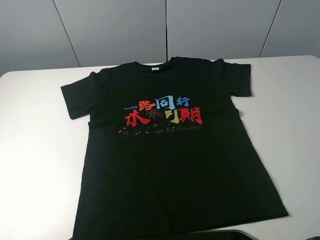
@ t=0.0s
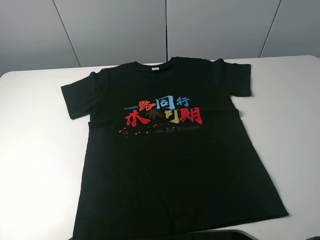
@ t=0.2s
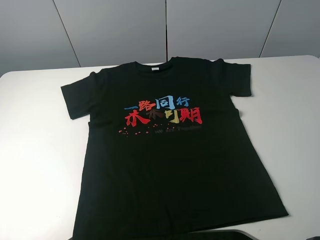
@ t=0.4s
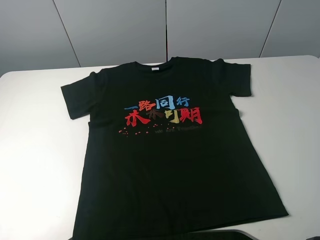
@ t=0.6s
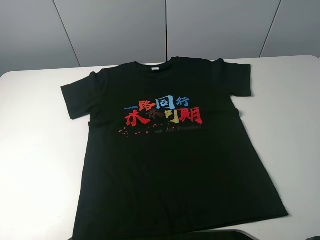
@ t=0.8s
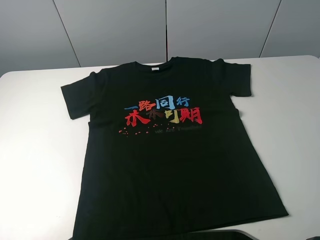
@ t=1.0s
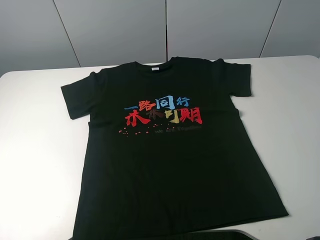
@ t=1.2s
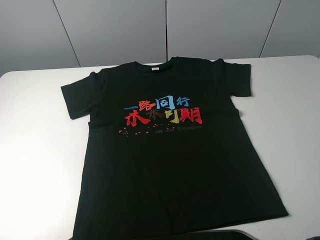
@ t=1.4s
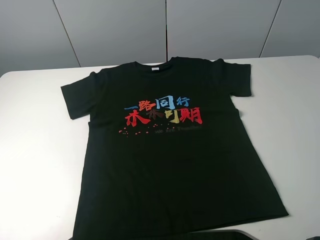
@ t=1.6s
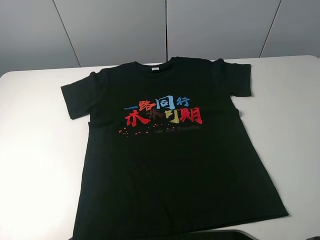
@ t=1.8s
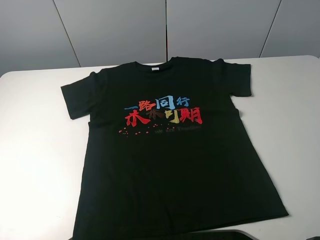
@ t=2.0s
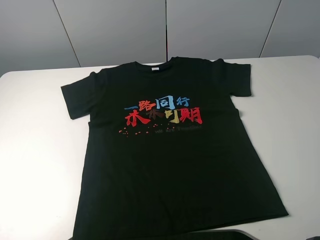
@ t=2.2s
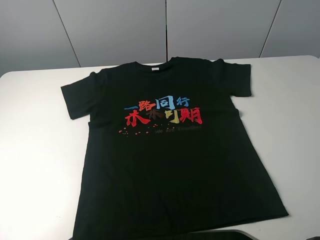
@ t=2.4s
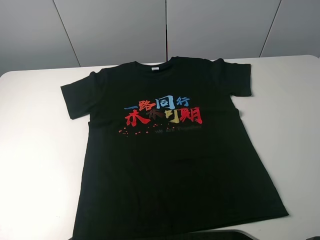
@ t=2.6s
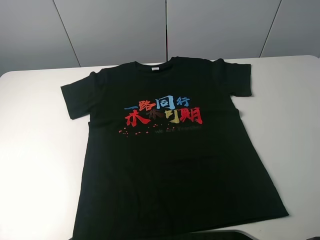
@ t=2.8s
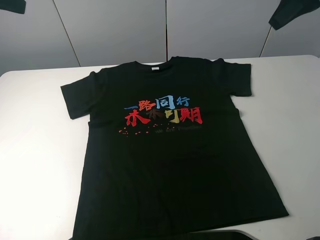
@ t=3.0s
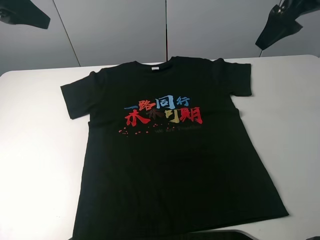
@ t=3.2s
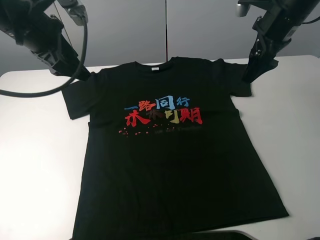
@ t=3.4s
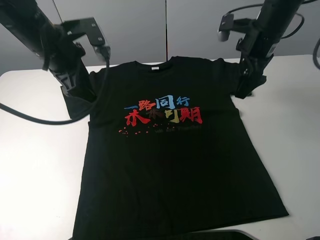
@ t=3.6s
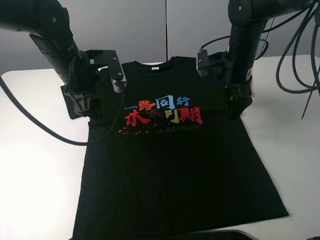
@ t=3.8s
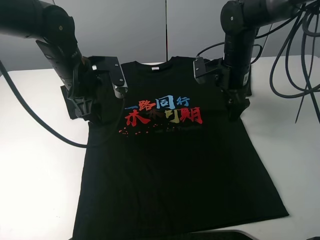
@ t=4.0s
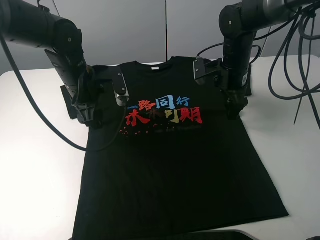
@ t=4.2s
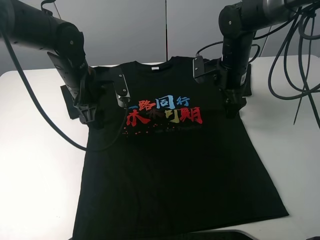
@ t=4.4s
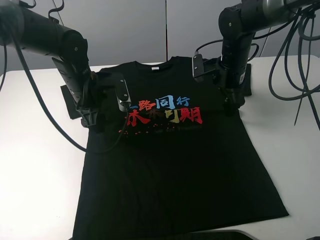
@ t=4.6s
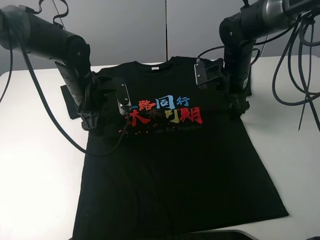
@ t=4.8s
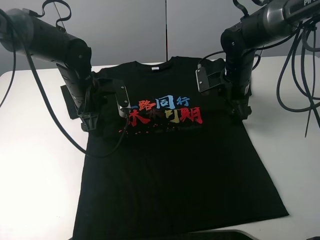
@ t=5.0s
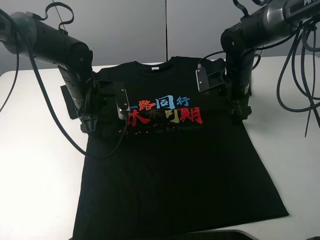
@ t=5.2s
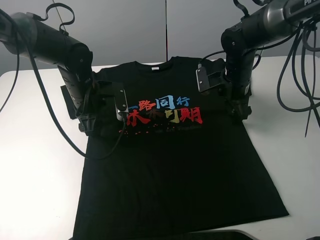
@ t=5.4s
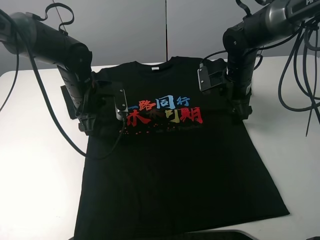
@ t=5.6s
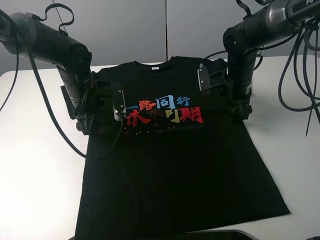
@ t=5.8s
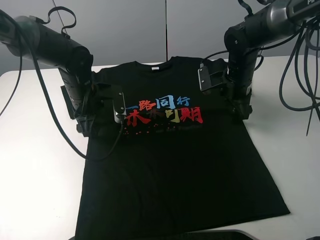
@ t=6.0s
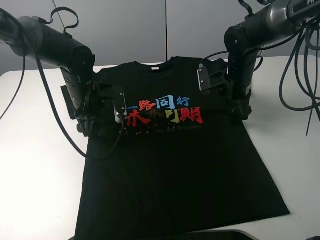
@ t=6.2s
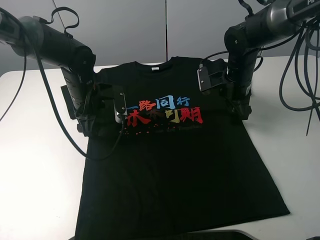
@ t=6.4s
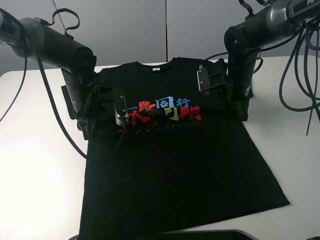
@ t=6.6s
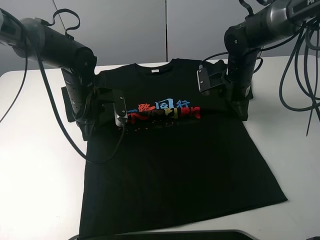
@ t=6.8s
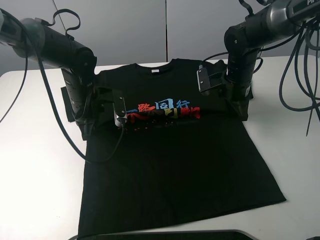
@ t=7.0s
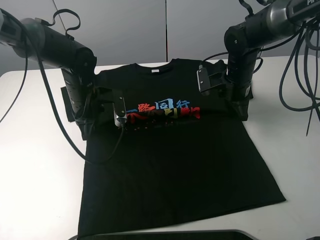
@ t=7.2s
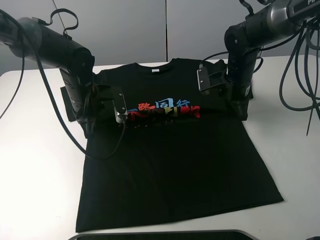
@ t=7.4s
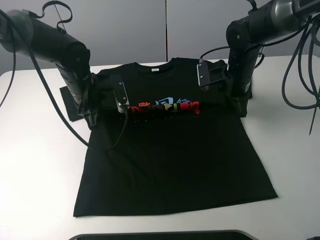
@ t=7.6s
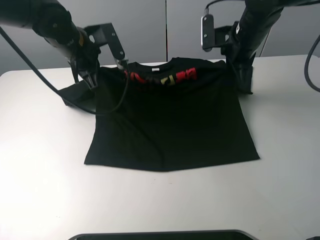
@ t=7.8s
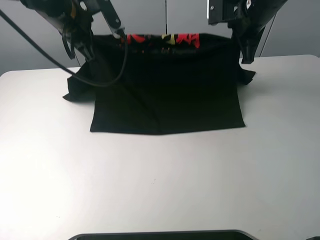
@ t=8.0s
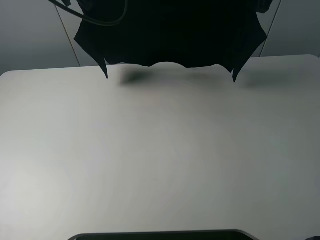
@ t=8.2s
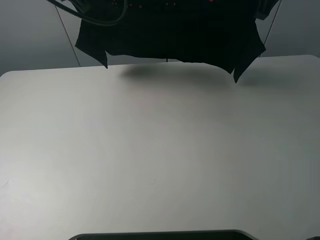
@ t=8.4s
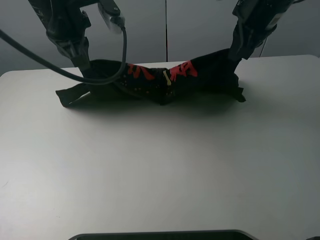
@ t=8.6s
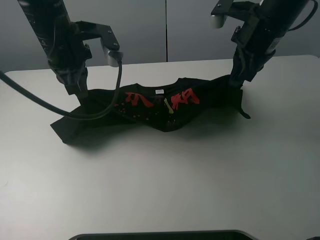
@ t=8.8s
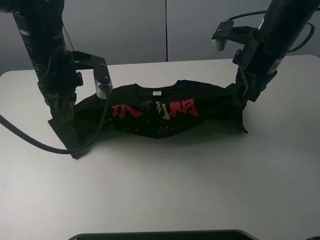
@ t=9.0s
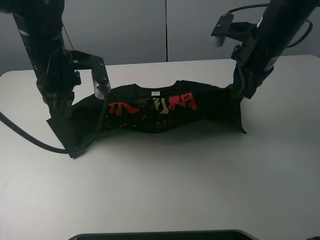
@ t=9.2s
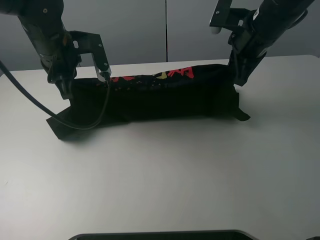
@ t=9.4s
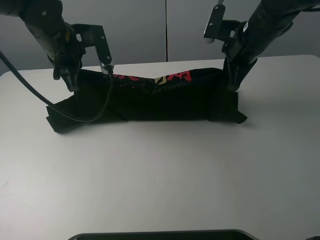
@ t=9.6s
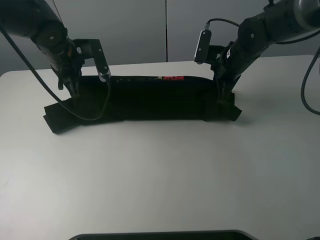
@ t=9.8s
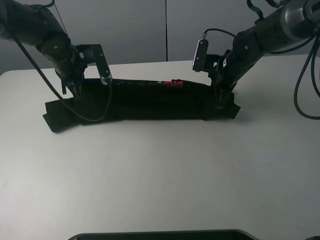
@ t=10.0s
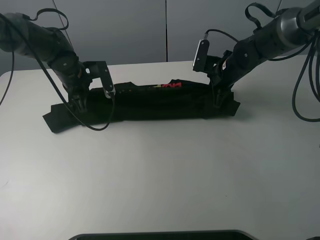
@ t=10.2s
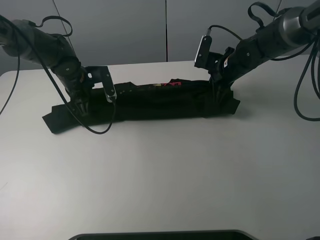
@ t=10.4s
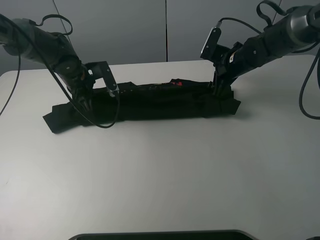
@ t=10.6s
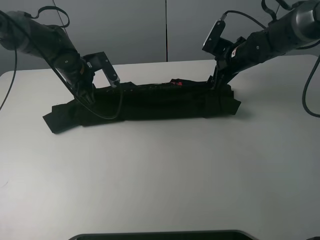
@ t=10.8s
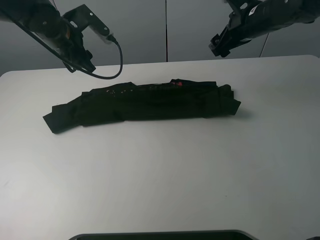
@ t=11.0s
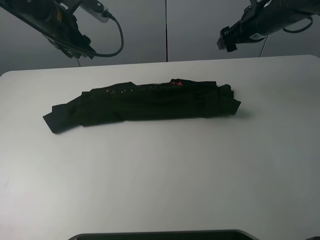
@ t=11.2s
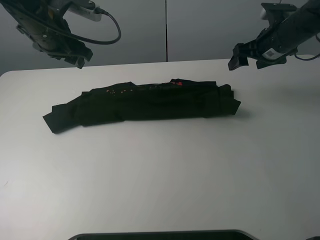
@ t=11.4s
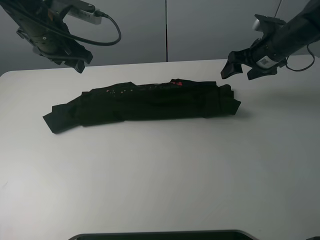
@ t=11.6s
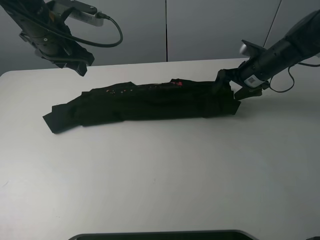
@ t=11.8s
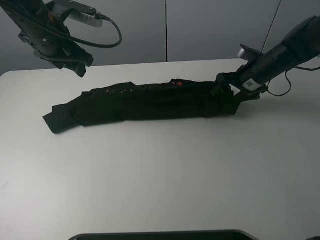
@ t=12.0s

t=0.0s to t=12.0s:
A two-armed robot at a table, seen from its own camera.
Task of the whole recording: fold the clothes on the table.
Step, t=0.0s to t=6.2s: Lift the black T-shirt with the left gripper.
Step, t=6.4s to t=10.8s: Fold the black T-shirt downward with the left gripper.
t=0.0s to t=1.6s: Neither gripper changes place.
t=1.6s to t=3.0s: The right gripper goes roughly 35 cm forward.
t=3.0s to t=4.4s: The right gripper heads downward and to the left, covering about 25 cm, while the left gripper travels downward and to the right by approximately 25 cm.
t=4.4s to t=6.0s: The grippers make only small movements.
t=6.0s to t=7.6s: The left gripper closes its fingers. The right gripper closes up.
t=7.6s to t=9.0s: Both grippers travel together upward and backward, approximately 10 cm.
t=9.0s to t=10.4s: The two grippers go approximately 15 cm downward and forward.
t=10.4s to t=12.0s: The right gripper shifts roughly 5 cm to the right, moves about 10 cm upward and comes back, and opens its fingers. The left gripper shifts approximately 15 cm upward, and opens its fingers.

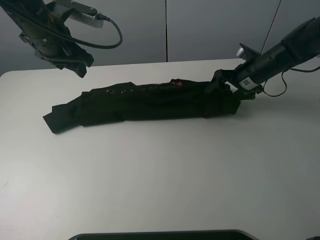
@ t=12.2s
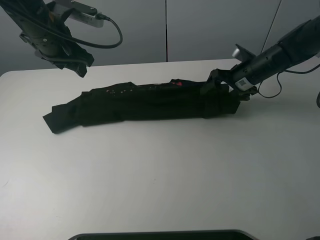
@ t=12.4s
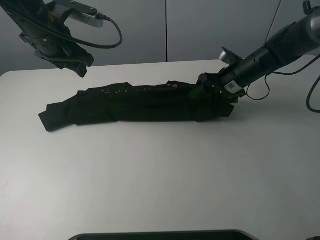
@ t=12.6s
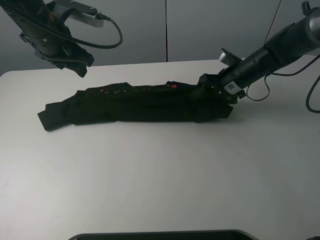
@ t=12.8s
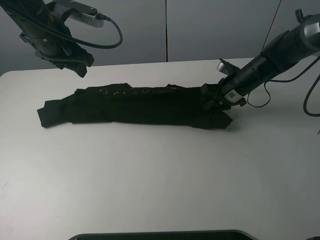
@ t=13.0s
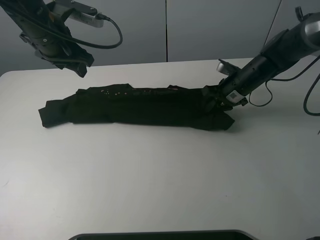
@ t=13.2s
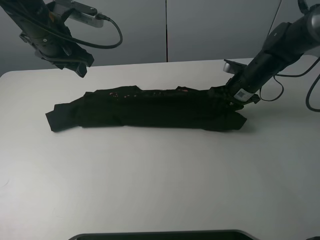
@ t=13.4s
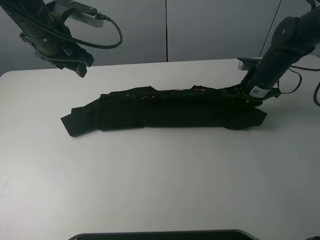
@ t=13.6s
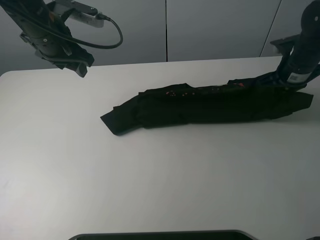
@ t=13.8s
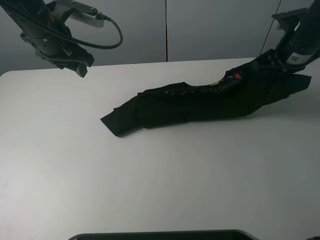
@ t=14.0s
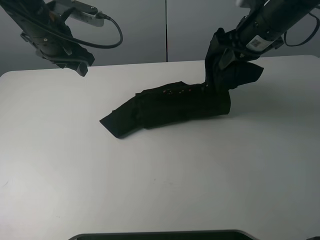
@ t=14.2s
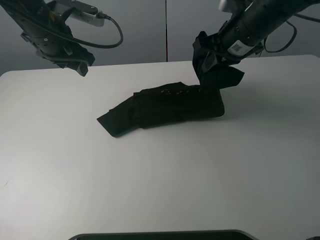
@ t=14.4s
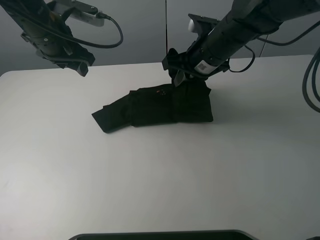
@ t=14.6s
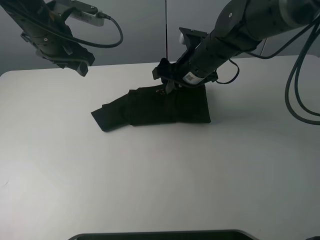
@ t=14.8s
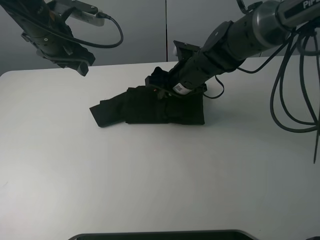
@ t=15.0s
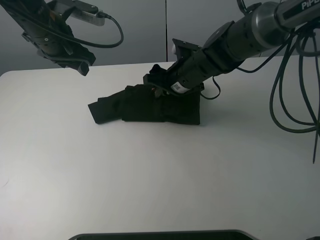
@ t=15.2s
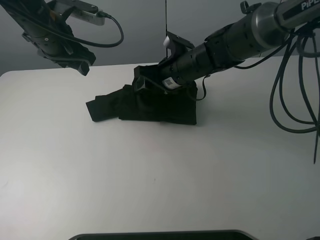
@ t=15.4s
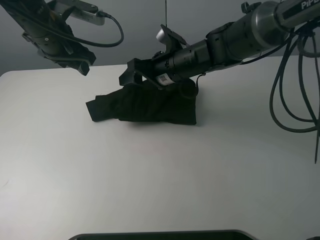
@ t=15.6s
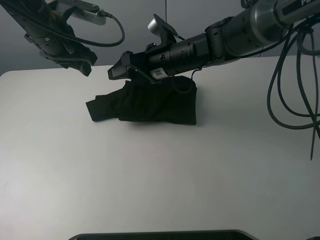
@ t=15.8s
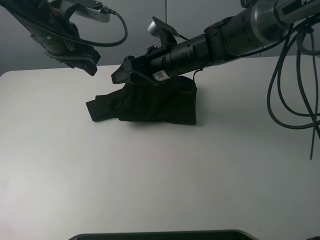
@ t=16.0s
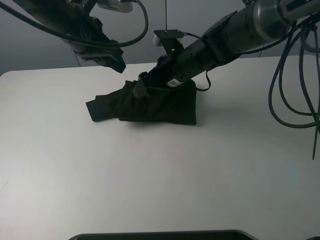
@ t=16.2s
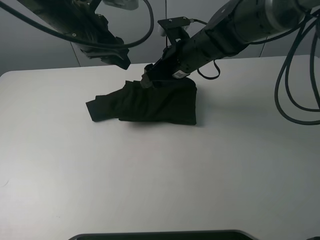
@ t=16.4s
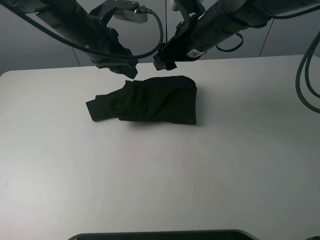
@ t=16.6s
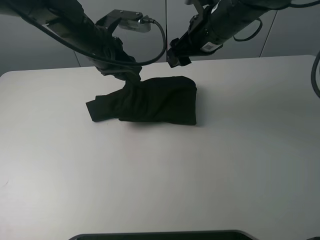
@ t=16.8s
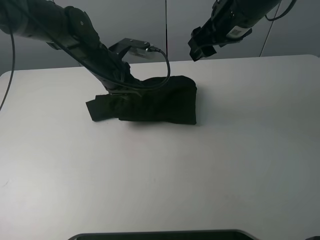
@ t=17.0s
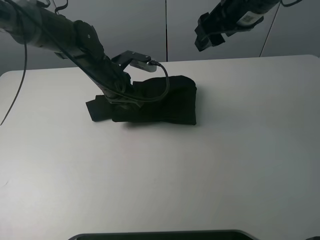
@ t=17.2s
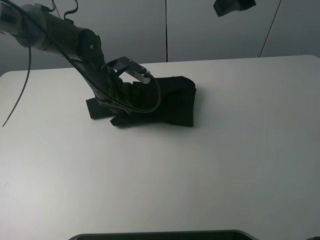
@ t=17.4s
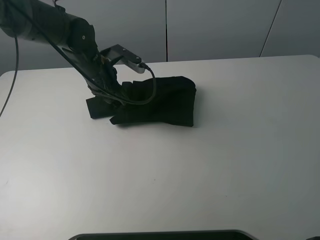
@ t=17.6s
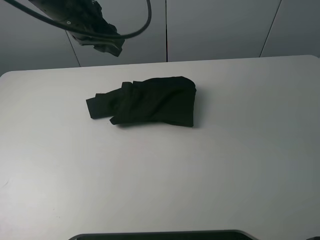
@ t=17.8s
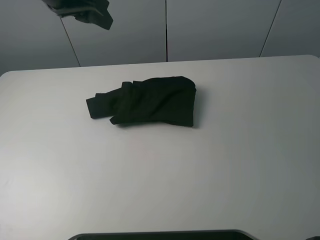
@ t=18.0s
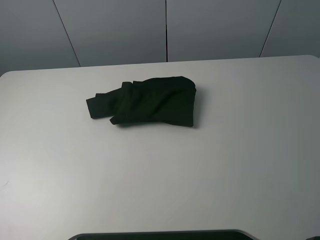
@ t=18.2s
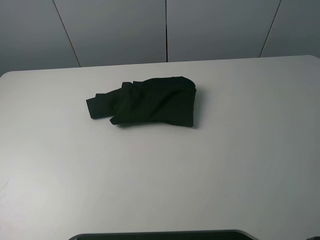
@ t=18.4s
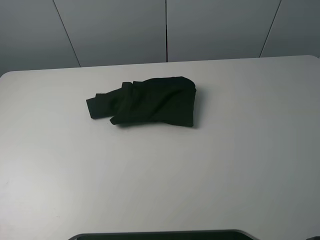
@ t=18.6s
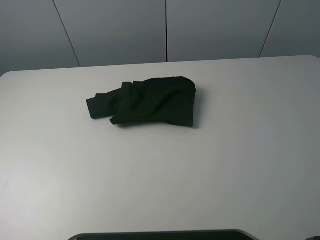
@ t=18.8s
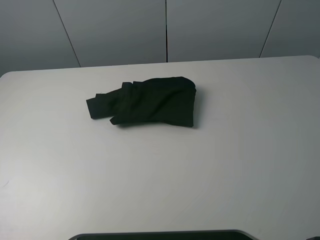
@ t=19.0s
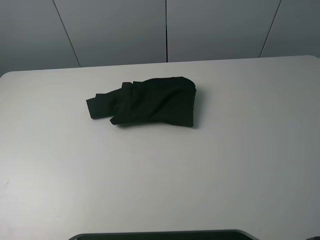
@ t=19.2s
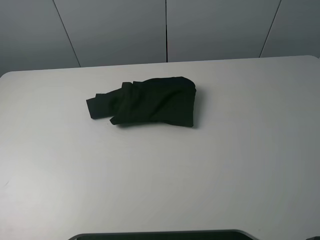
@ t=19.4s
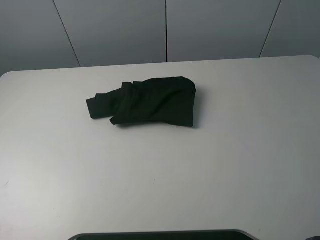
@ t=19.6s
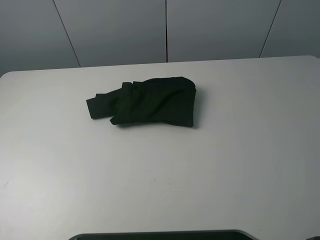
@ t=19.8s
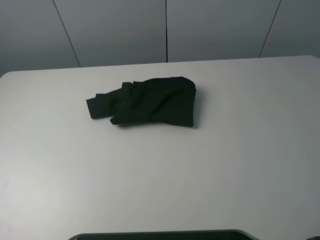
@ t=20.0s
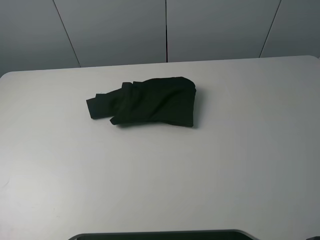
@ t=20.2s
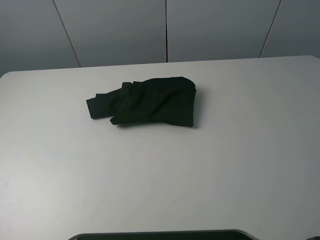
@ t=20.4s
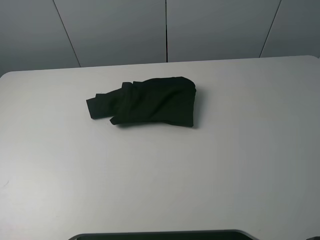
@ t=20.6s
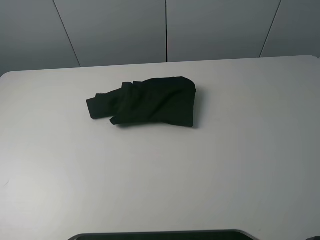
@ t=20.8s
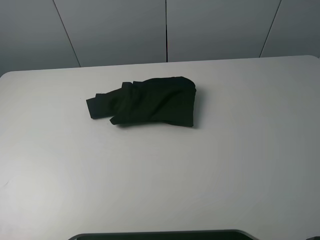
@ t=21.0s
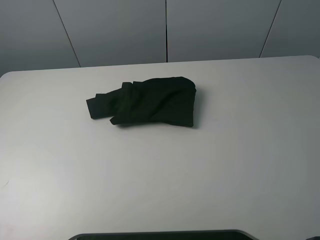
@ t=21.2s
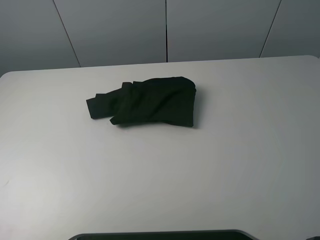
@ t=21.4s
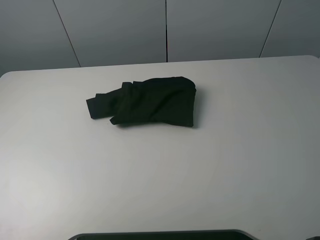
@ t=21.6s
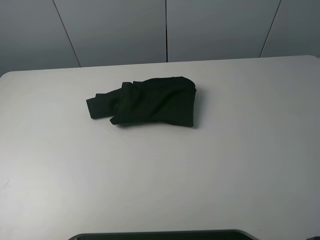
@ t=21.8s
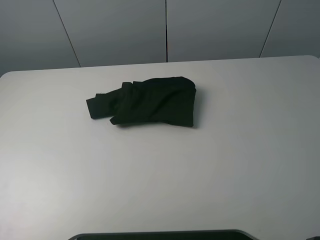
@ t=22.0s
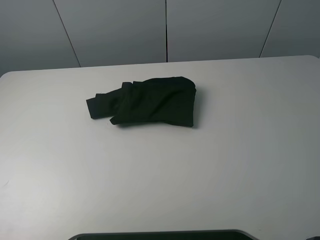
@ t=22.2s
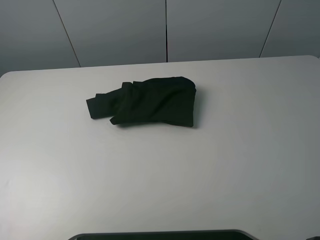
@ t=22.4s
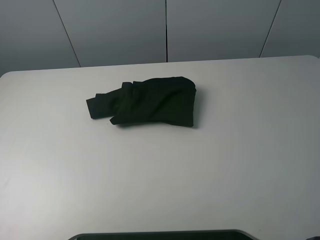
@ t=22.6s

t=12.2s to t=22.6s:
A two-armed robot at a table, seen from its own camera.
Task of the whole recording: fold the clothes on the table.
Step, t=13.2s to t=15.6s: Fold the black T-shirt from right to left with right gripper.
Step, t=15.8s to t=17.6s: Use the left gripper to tidy up the clothes.
t=12.2s to t=13.6s: The right gripper closes.
t=13.6s to t=15.2s: The right gripper is displaced to the left by approximately 20 cm.
t=15.2s to t=16.6s: The right gripper shifts roughly 10 cm upward, and opens. Meanwhile the left gripper heads to the right, covering approximately 5 cm.
t=16.6s to t=18.2s: The left gripper moves upward, backward and to the left, about 30 cm, while the right gripper is displaced backward, upward and to the right by roughly 40 cm.
t=21.2s to t=22.6s: Both grippers stay put.
